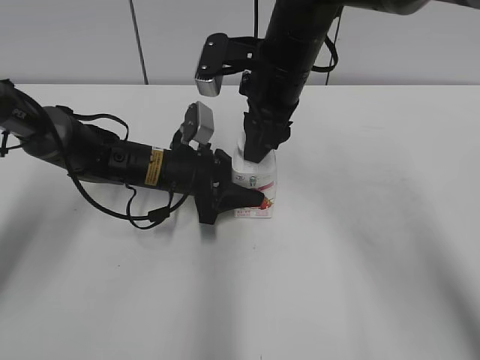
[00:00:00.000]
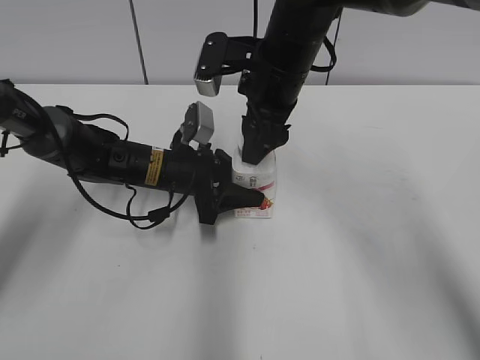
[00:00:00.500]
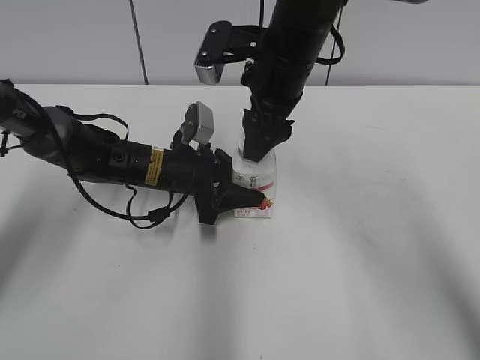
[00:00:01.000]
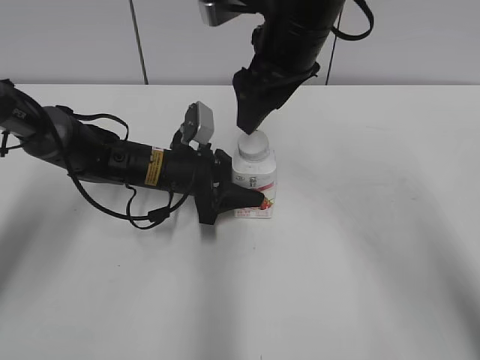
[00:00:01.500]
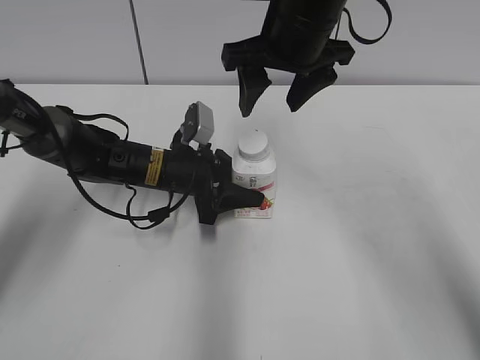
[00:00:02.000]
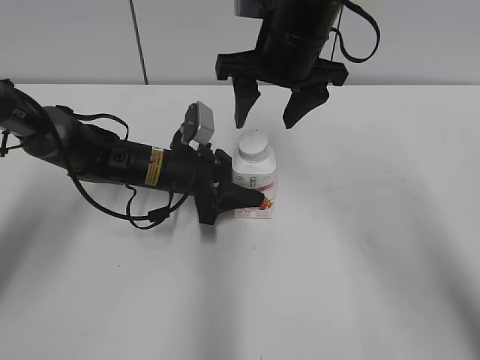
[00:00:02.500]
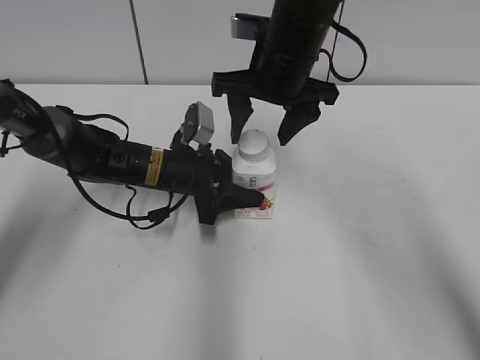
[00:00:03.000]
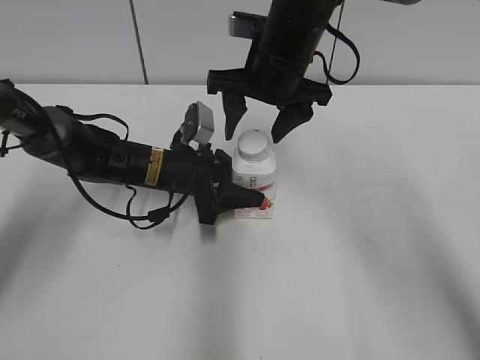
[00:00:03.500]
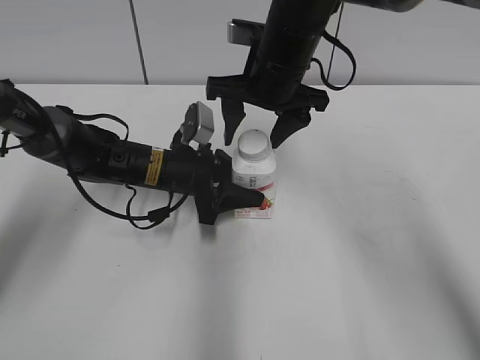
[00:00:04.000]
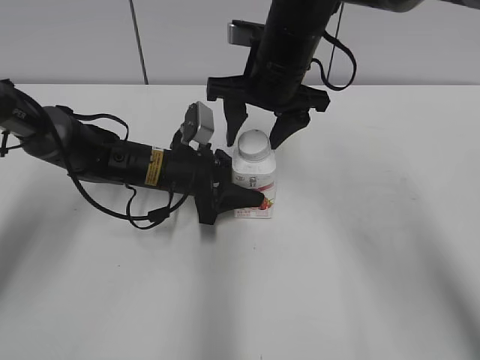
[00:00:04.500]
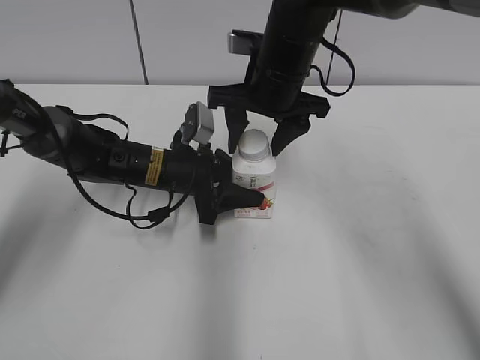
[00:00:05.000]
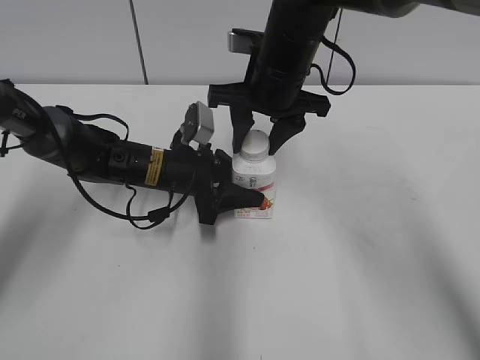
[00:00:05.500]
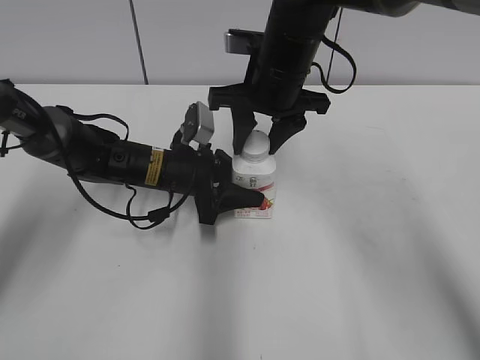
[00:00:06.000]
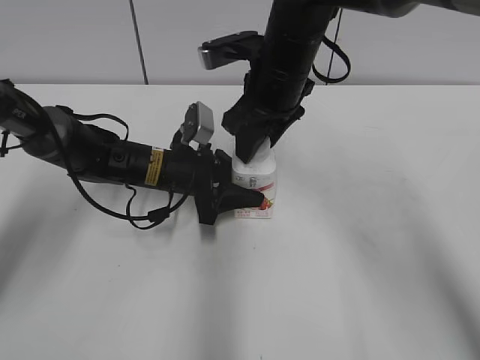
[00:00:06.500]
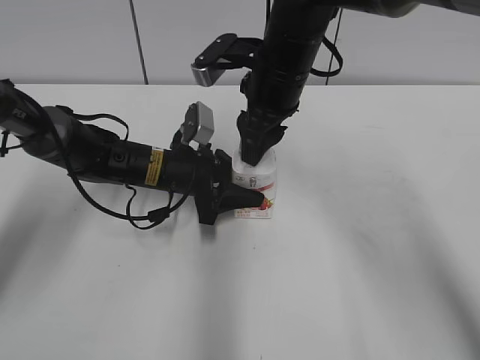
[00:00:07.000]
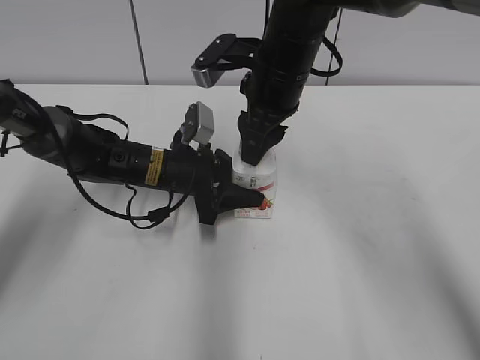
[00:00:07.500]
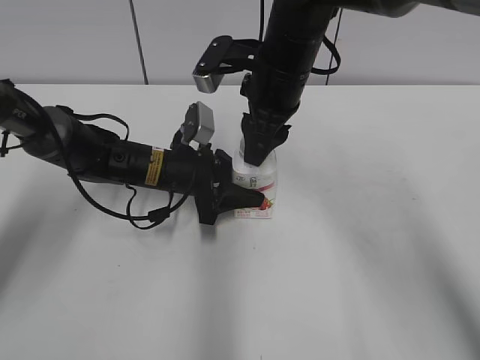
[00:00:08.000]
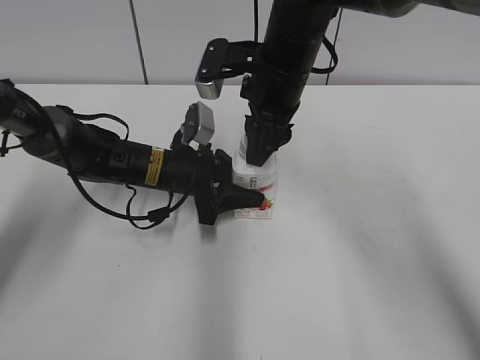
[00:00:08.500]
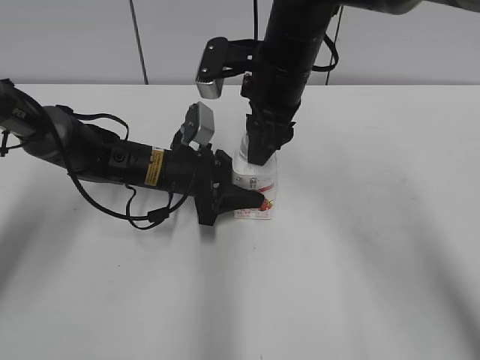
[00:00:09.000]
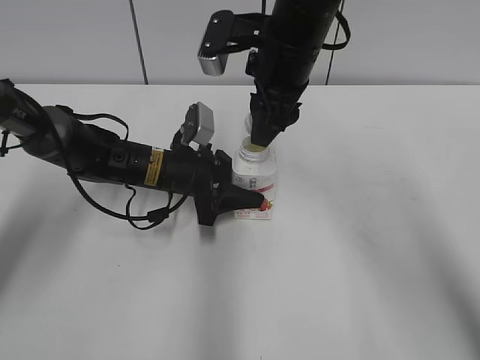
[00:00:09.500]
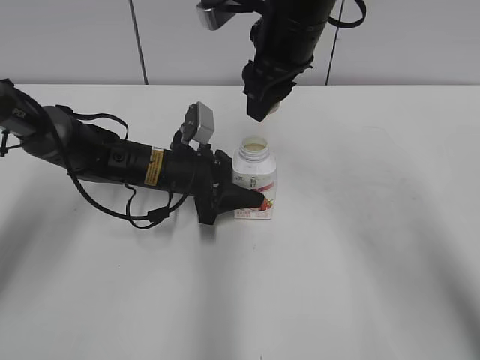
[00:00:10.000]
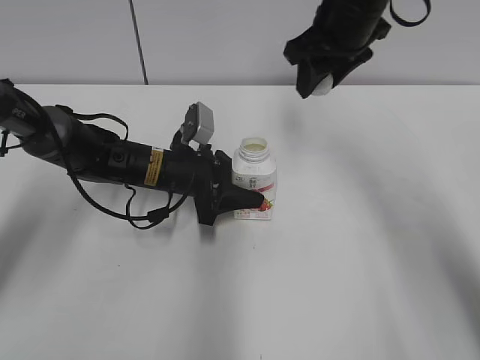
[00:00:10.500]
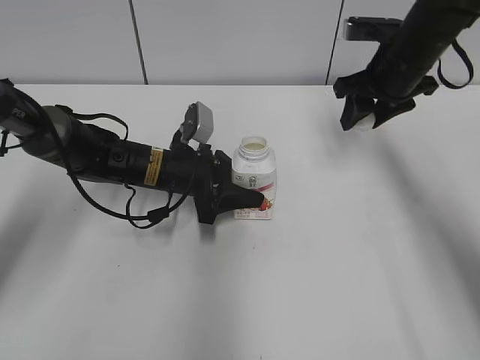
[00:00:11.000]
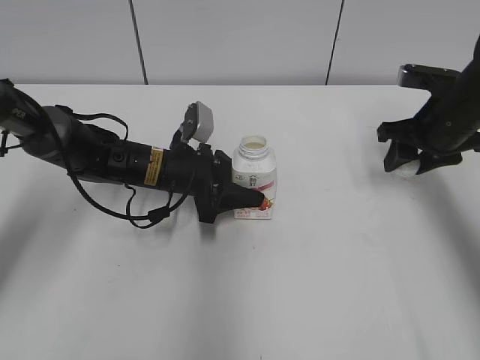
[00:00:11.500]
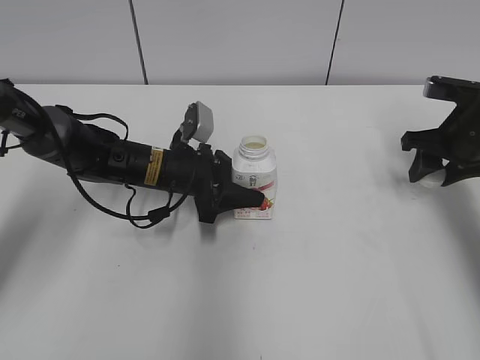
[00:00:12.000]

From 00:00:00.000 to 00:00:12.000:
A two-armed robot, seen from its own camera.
From 00:00:00.000 to 00:00:02.000: The right gripper shifts some 5 cm upward, and opens its fingers.
From 00:00:02.000 to 00:00:04.000: The right gripper goes about 5 cm downward.
From 00:00:04.000 to 00:00:06.000: The right gripper closes.
From 00:00:08.000 to 00:00:10.000: The right gripper is displaced upward by roughly 5 cm.
From 00:00:10.000 to 00:00:12.000: The right gripper is displaced to the right and downward by approximately 25 cm.

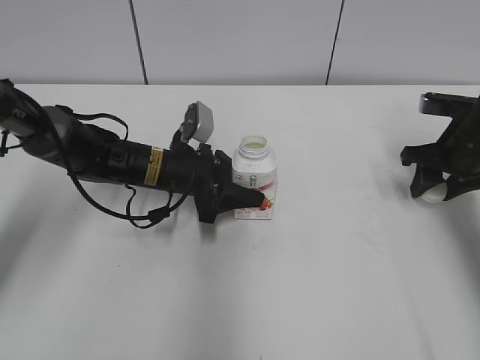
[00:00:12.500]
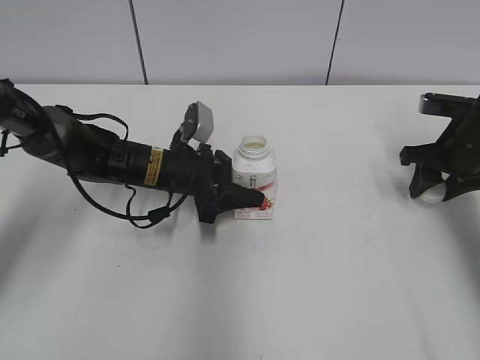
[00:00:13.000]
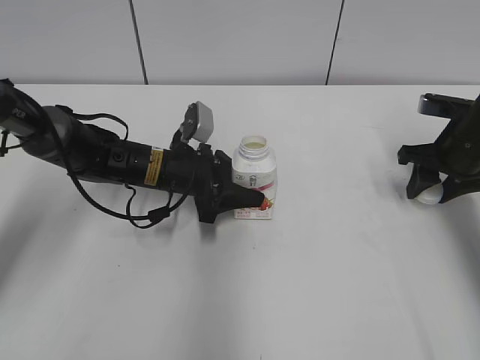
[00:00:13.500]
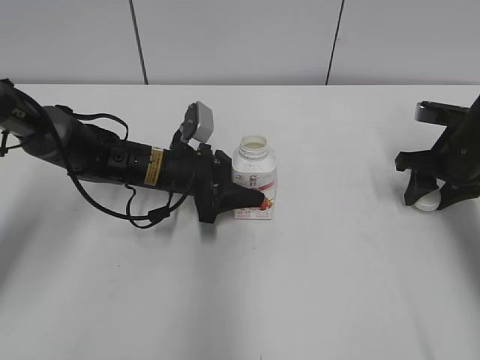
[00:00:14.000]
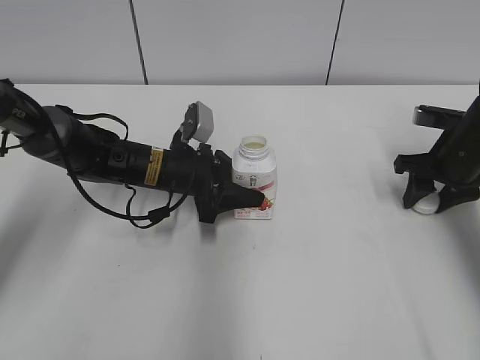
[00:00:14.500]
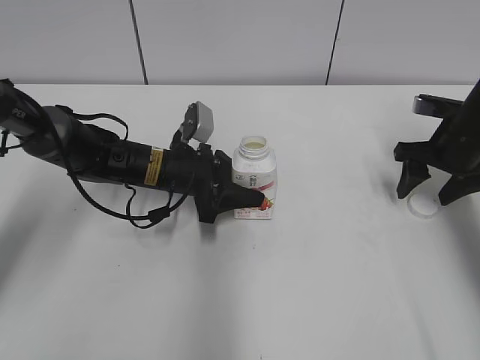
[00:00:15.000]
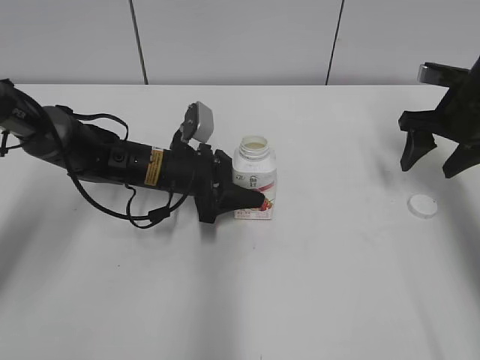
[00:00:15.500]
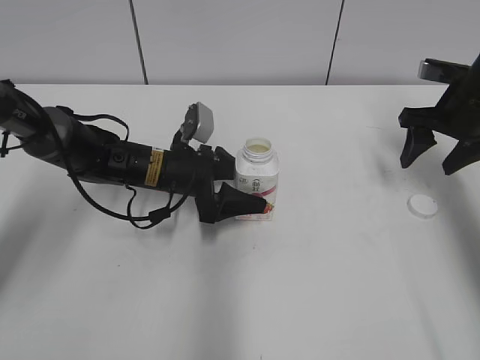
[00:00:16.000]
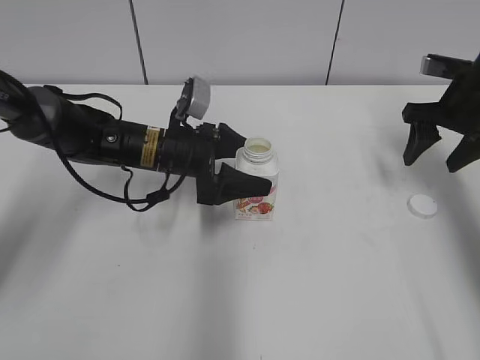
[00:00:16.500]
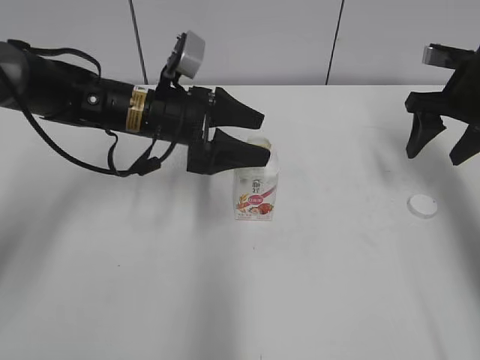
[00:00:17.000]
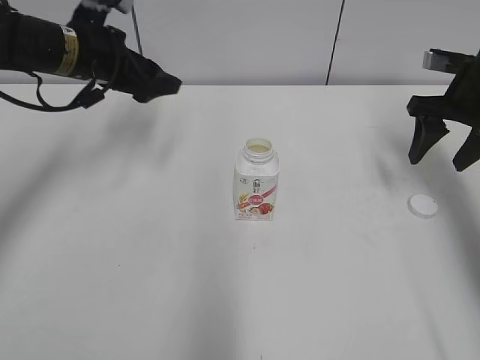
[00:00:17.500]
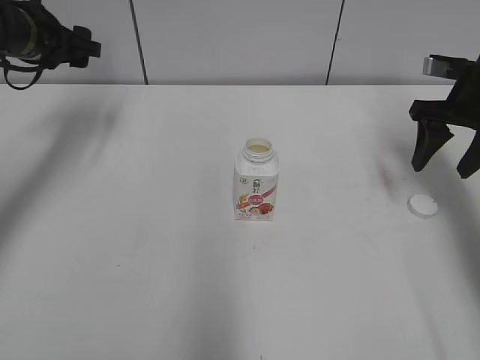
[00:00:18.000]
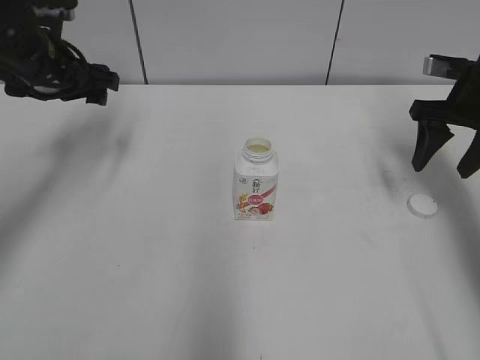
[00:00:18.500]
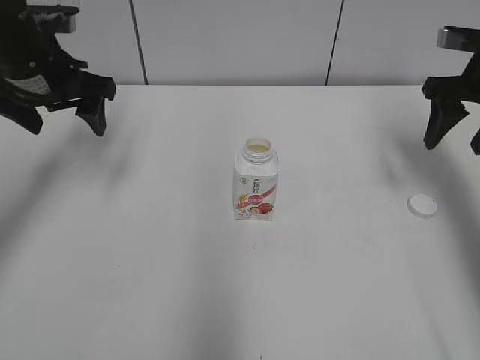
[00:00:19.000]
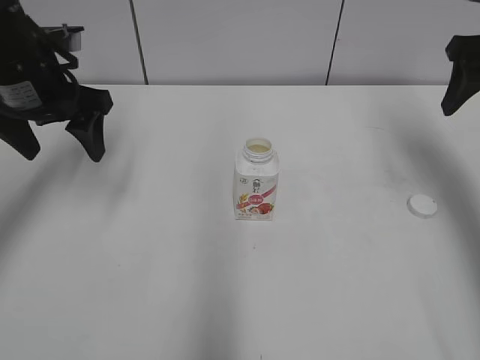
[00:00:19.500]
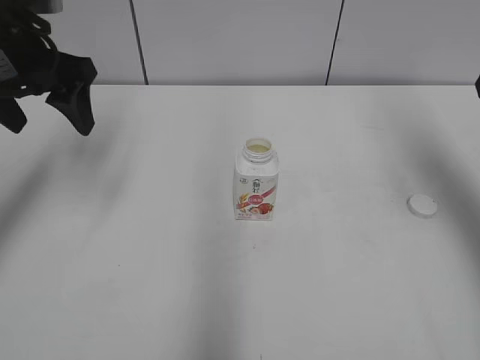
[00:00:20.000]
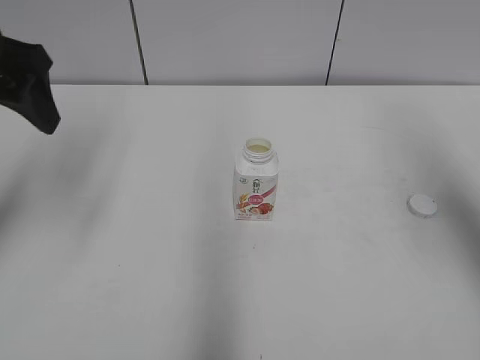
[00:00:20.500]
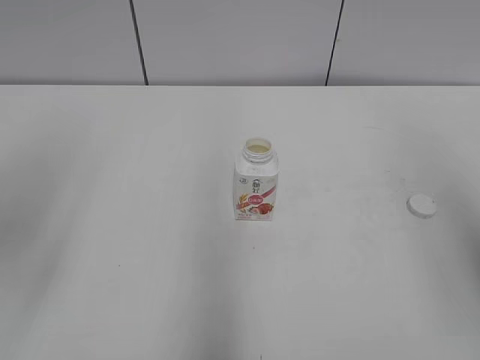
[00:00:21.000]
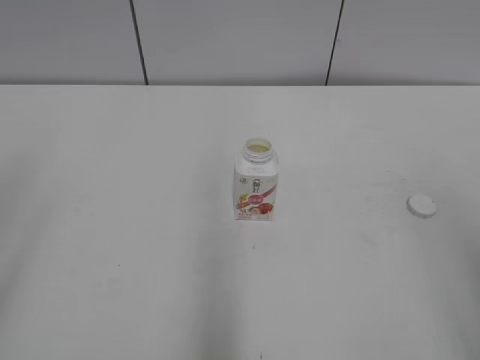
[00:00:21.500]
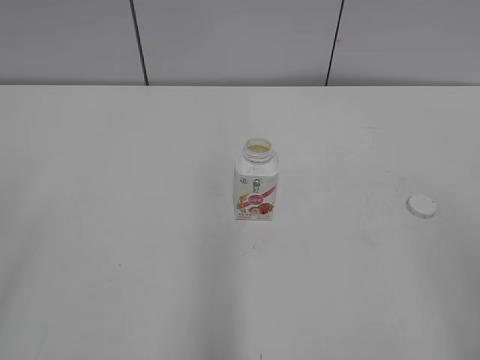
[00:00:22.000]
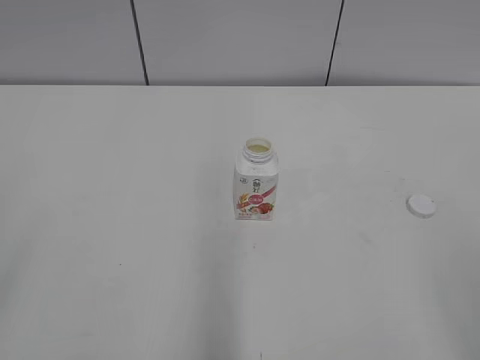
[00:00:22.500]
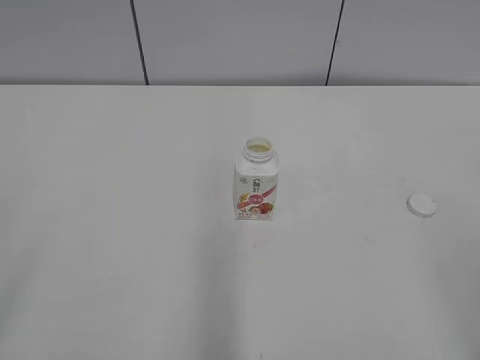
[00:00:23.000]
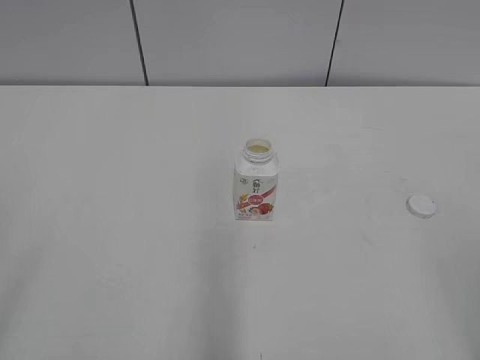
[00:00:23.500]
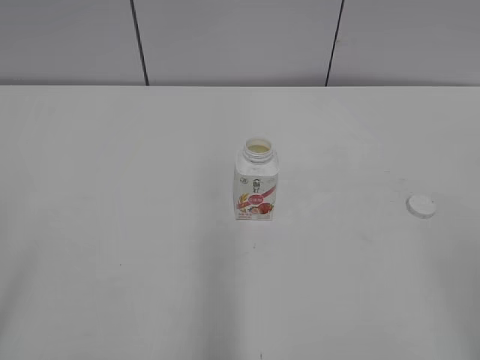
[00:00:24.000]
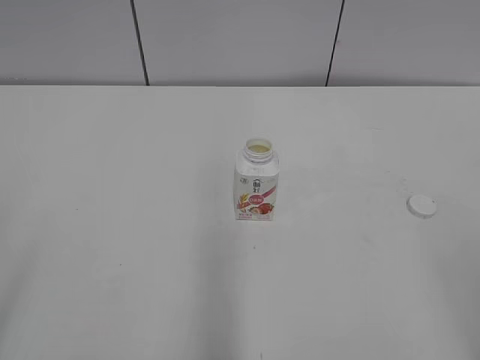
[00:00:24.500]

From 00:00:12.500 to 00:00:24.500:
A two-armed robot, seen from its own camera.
Step, from 00:00:12.500 to 00:00:14.500: Place the bottle cap on the right.
From 00:00:12.500 to 00:00:14.500: The grippers stay close to where they were, moving slightly.
From 00:00:14.500 to 00:00:16.500: The left gripper opens up, while the right gripper moves upward, some 5 cm, and opens.
From 00:00:16.500 to 00:00:18.500: The left gripper travels to the left and upward by some 20 cm.
From 00:00:18.500 to 00:00:20.500: Both grippers move backward and upward, about 20 cm.
From 00:00:20.500 to 00:00:22.500: The grippers both shift backward by some 30 cm.
